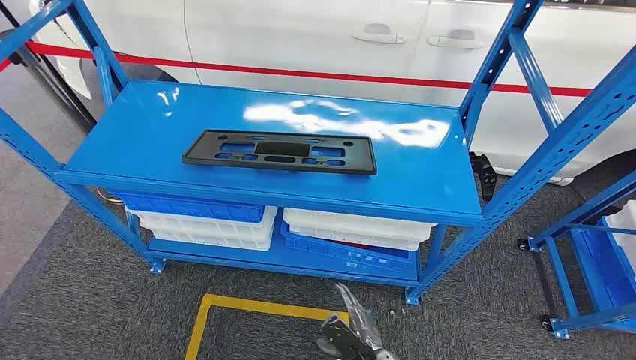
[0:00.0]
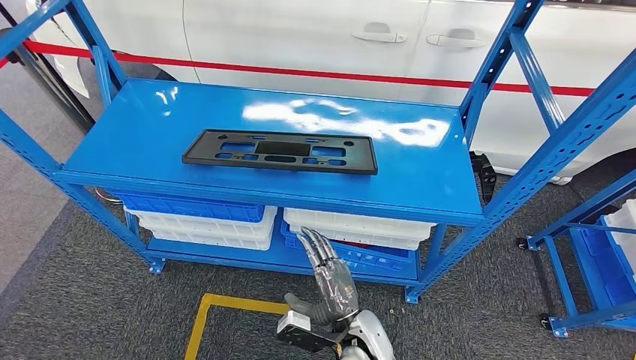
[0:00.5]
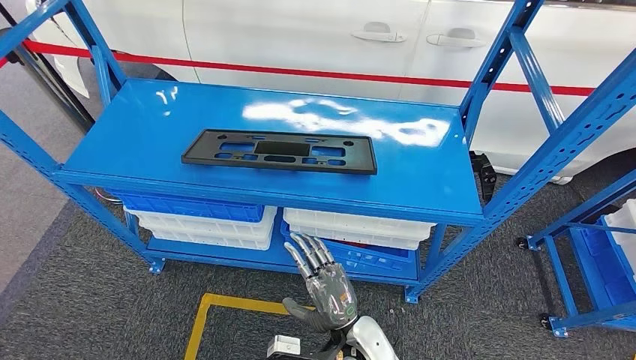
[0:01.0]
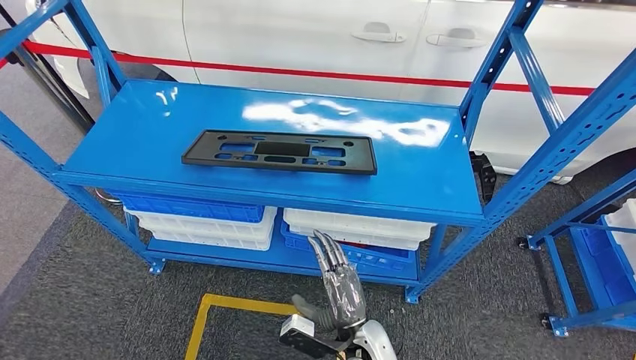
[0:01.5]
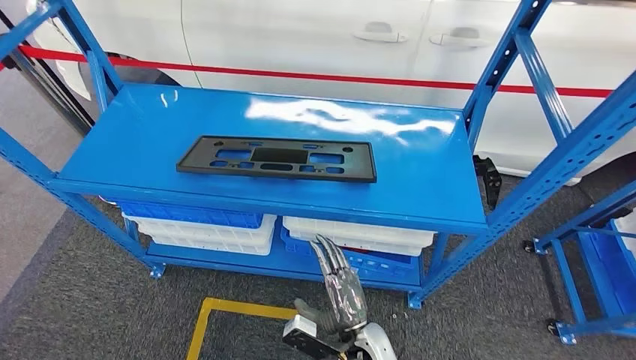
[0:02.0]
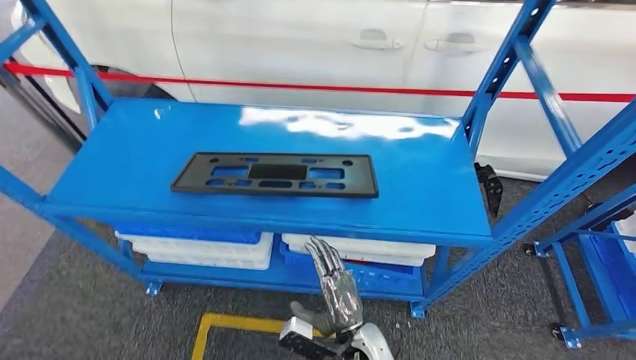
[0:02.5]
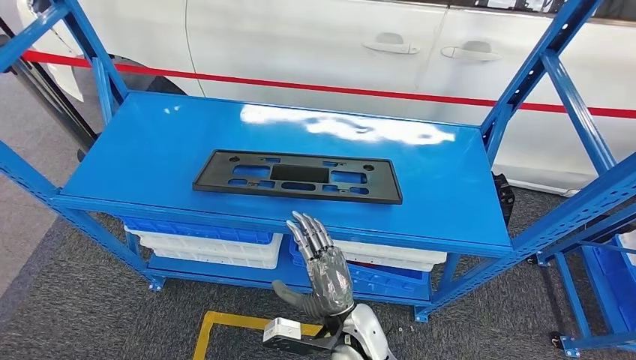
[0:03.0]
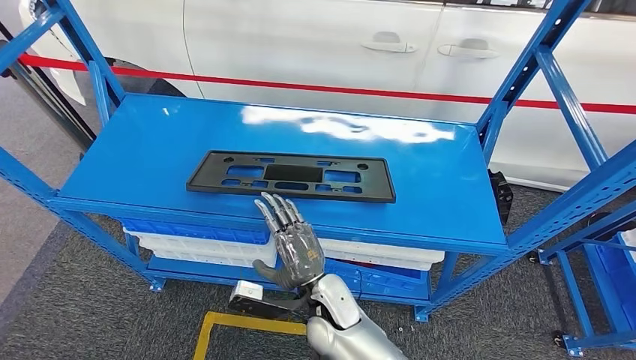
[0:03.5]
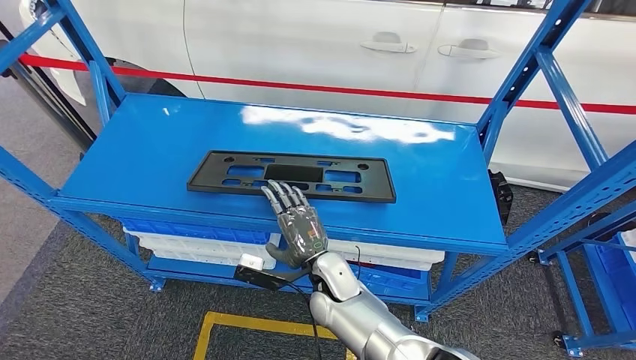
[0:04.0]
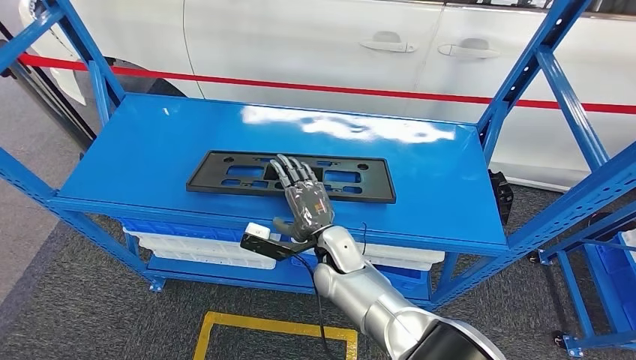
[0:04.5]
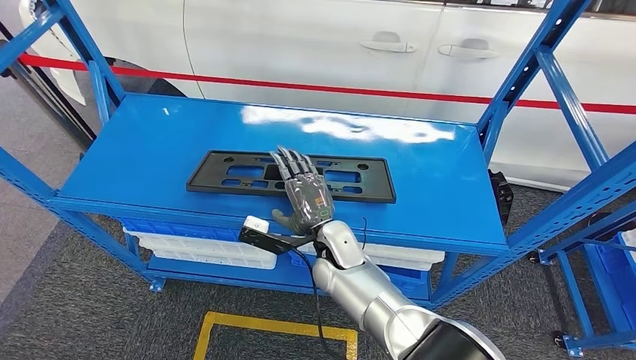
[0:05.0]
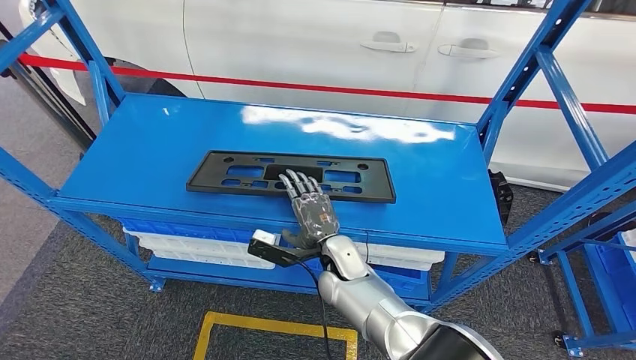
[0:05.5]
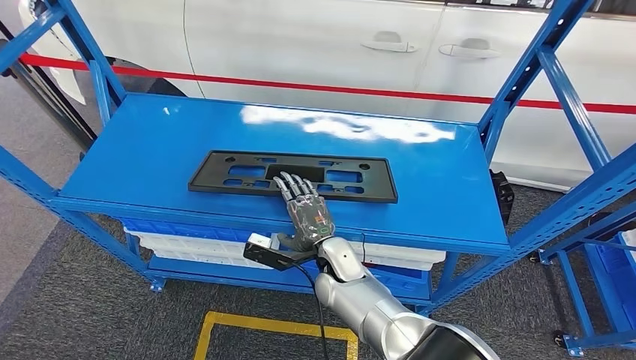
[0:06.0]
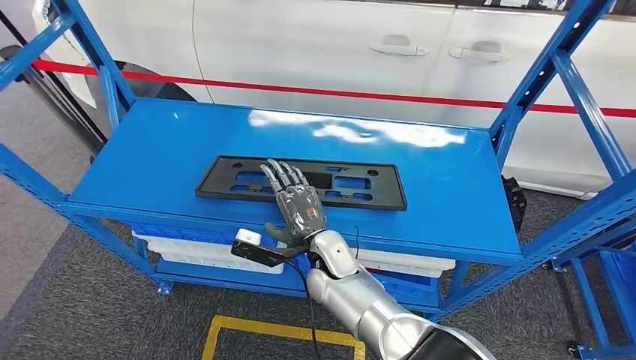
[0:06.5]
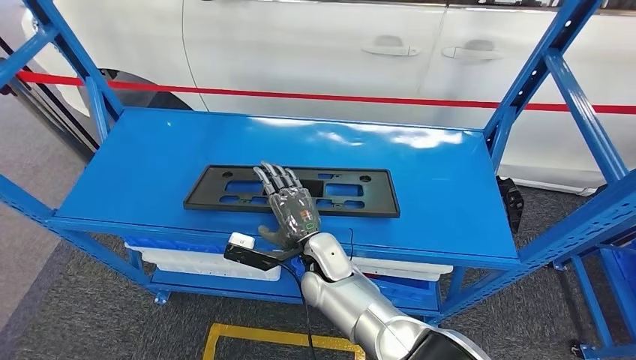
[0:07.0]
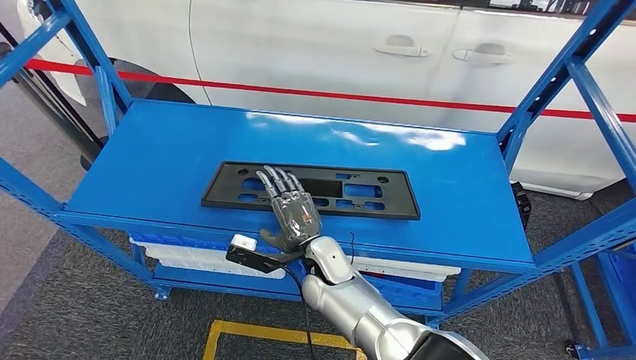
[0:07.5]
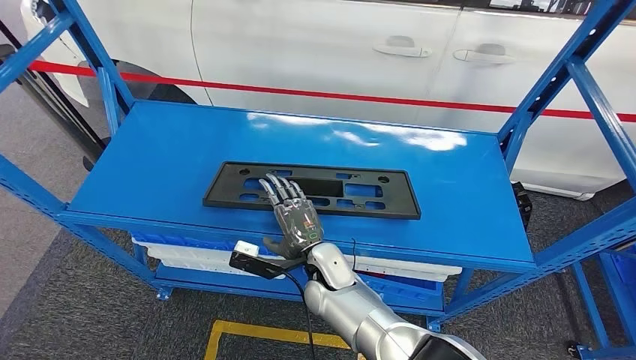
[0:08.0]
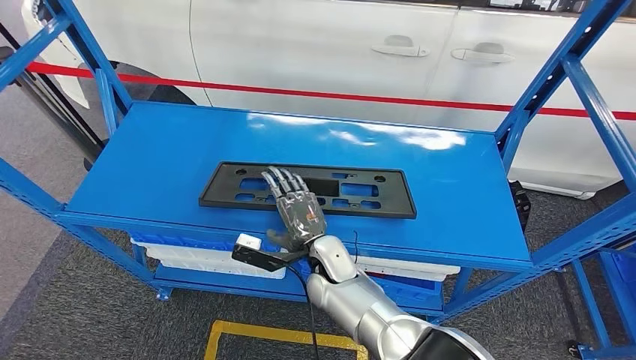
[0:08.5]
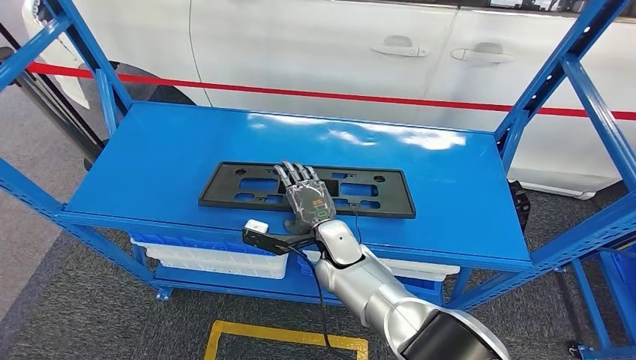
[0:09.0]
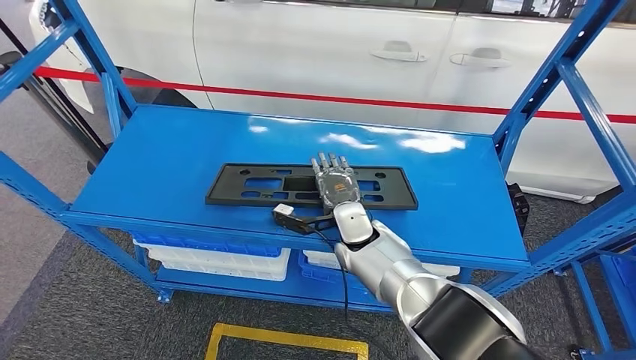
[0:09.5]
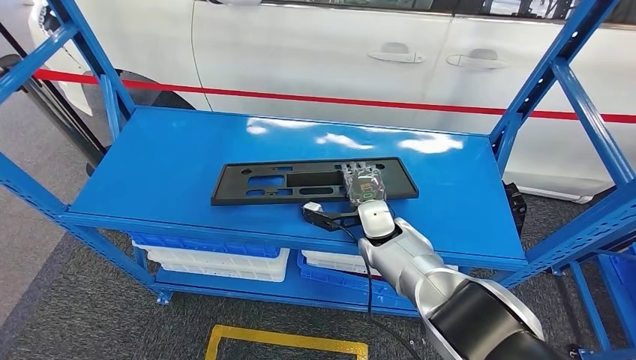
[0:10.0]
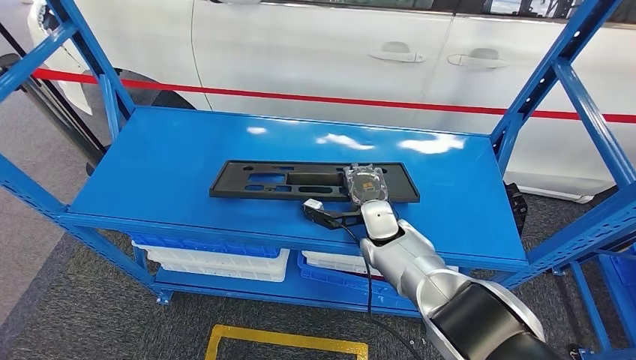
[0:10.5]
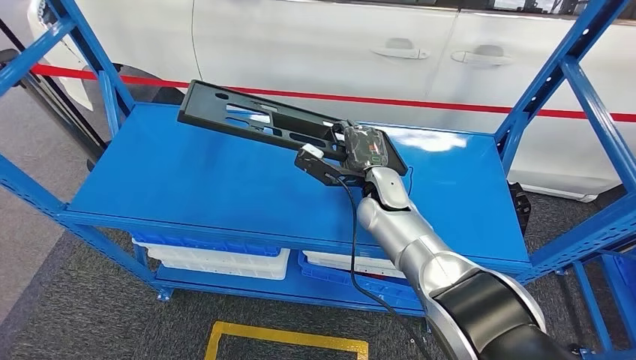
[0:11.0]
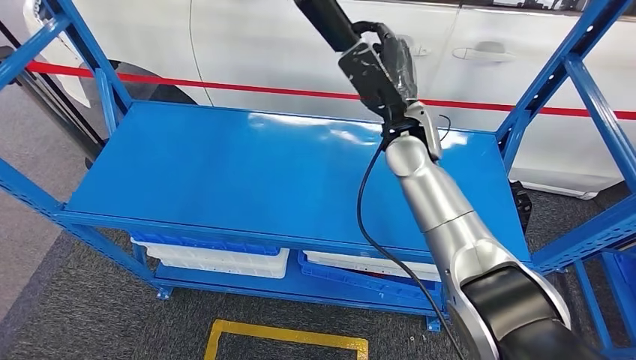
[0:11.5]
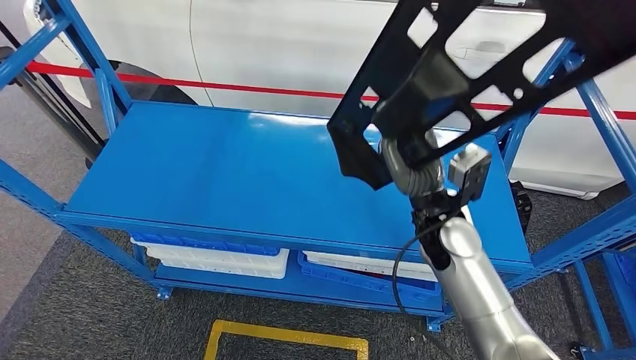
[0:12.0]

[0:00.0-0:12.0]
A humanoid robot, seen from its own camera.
0:04.0 to 0:06.0: The hands make only small movements.

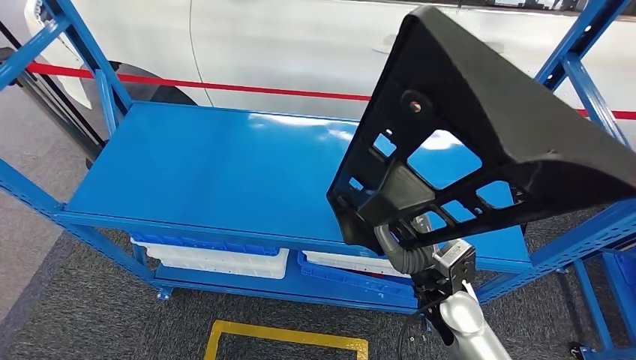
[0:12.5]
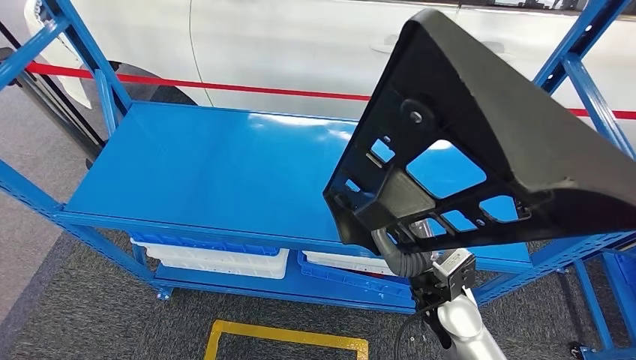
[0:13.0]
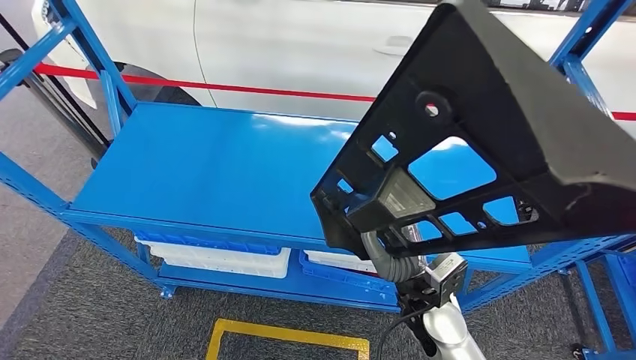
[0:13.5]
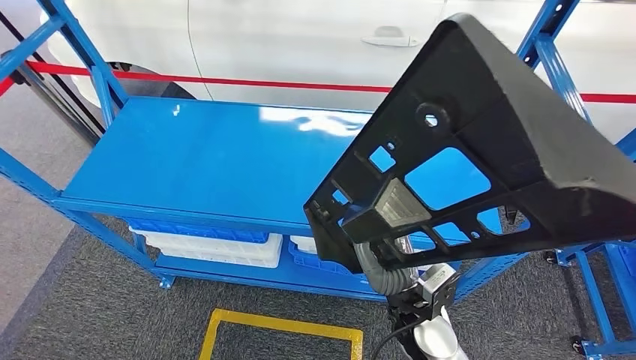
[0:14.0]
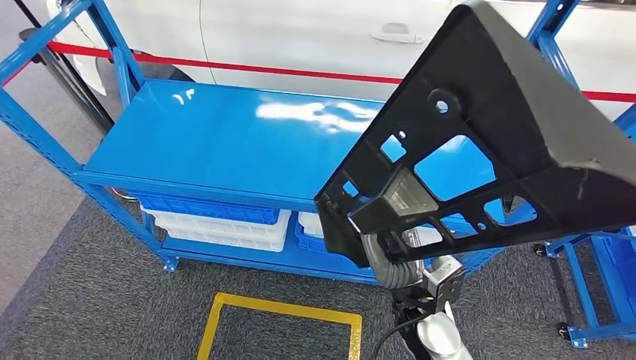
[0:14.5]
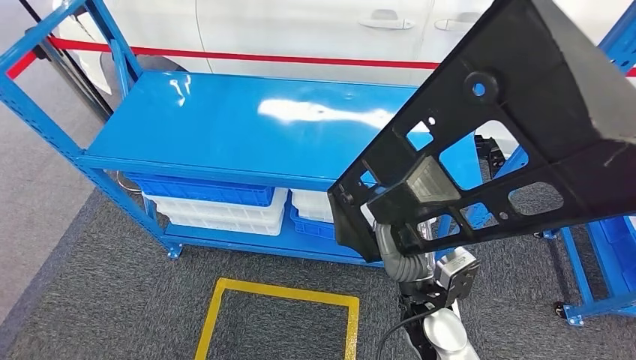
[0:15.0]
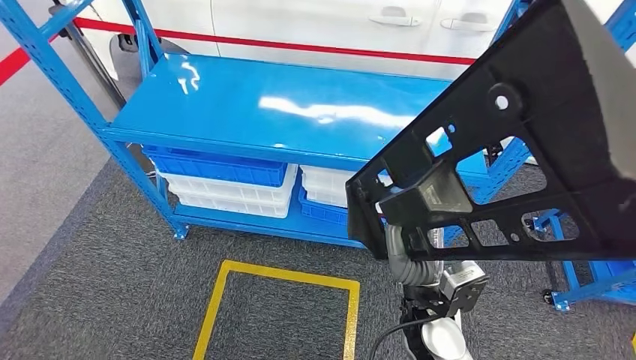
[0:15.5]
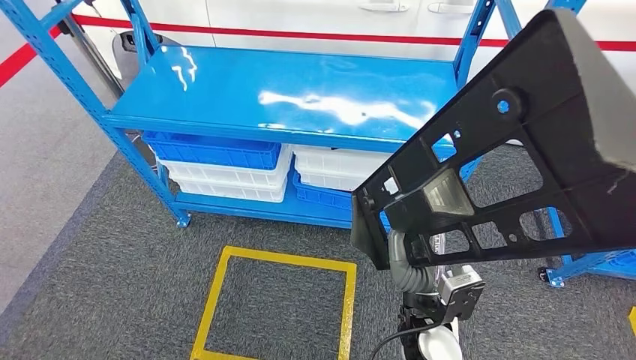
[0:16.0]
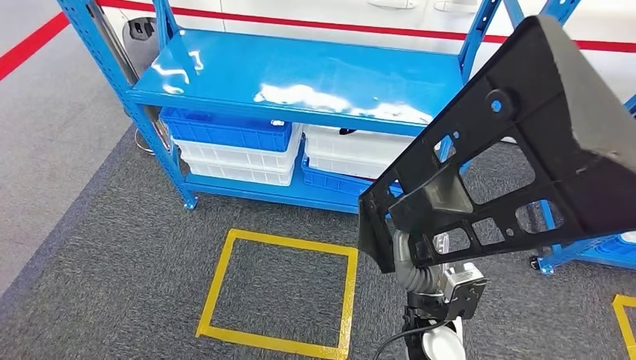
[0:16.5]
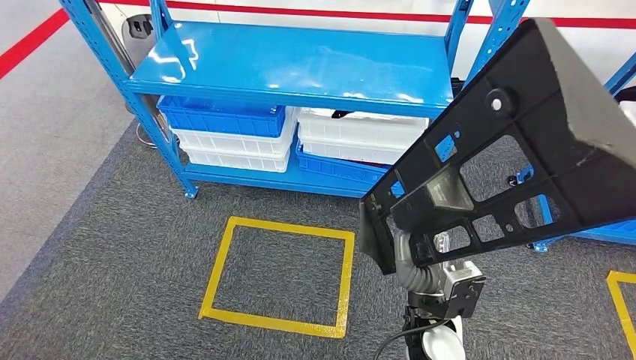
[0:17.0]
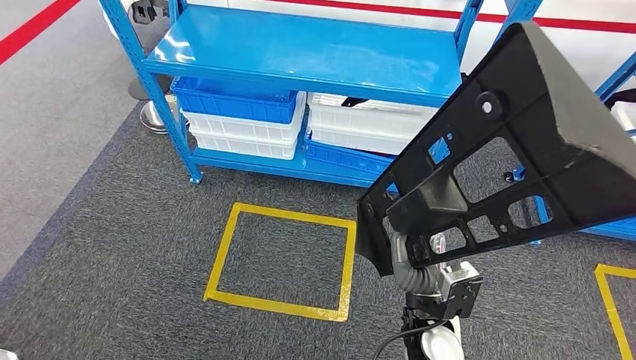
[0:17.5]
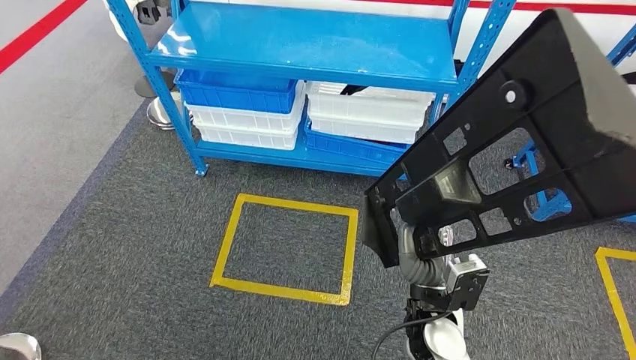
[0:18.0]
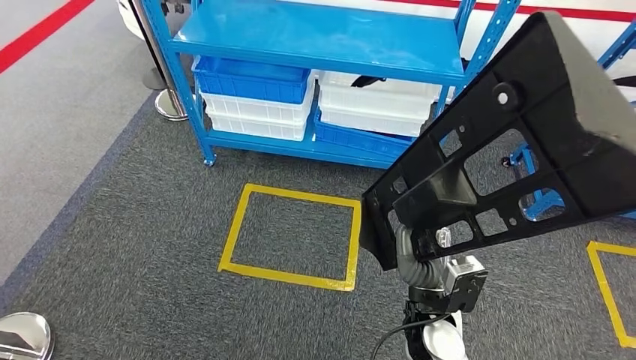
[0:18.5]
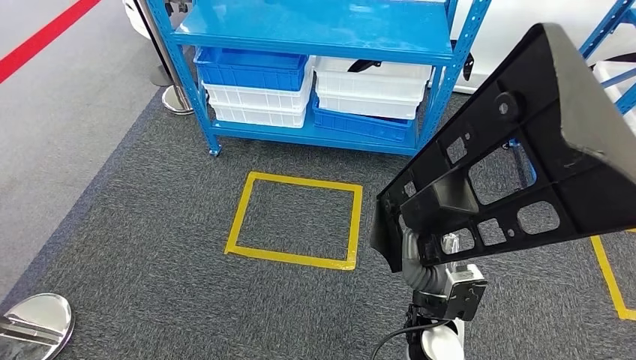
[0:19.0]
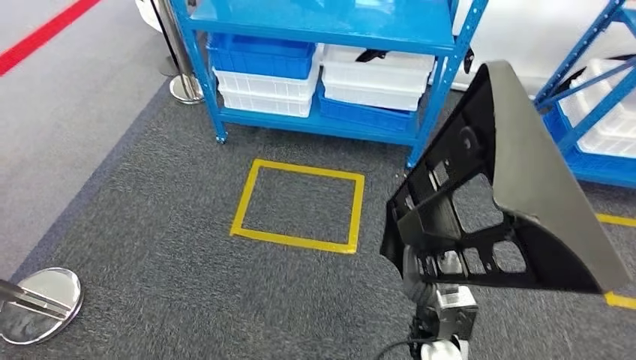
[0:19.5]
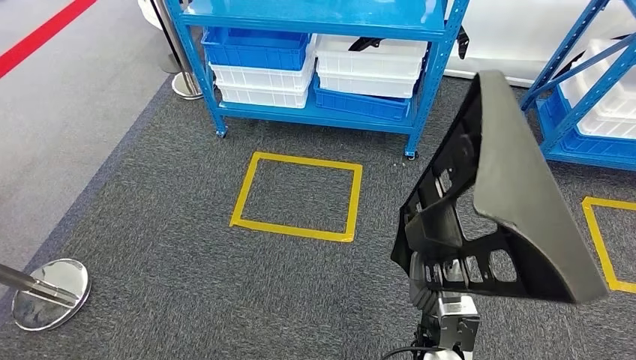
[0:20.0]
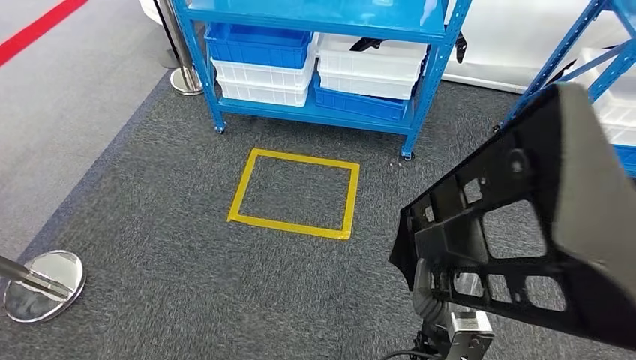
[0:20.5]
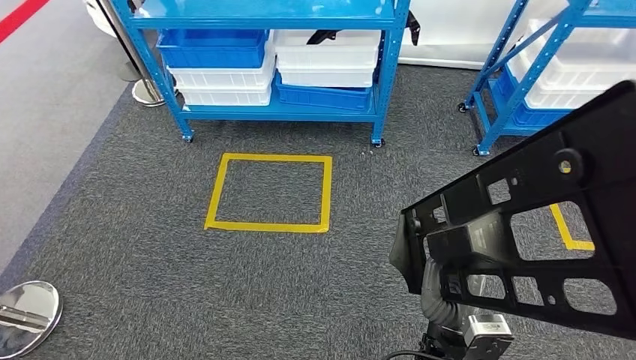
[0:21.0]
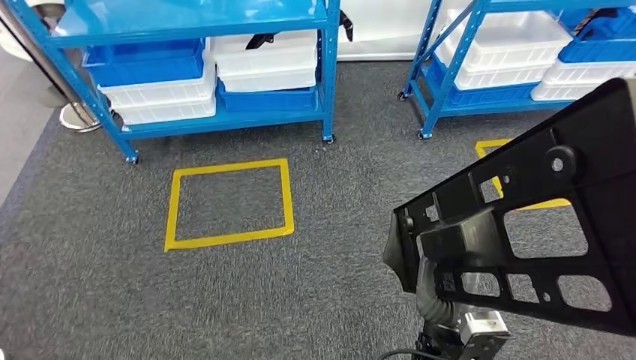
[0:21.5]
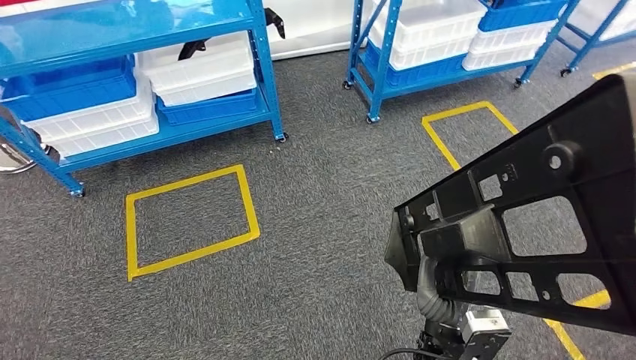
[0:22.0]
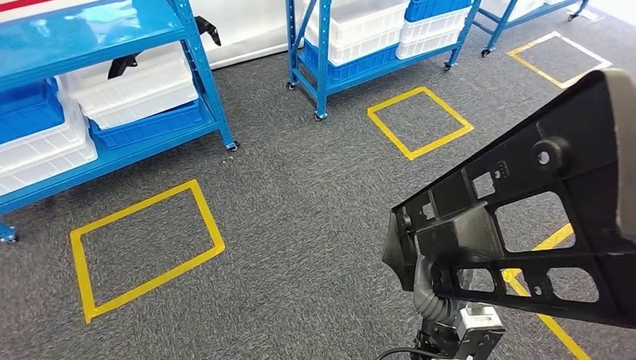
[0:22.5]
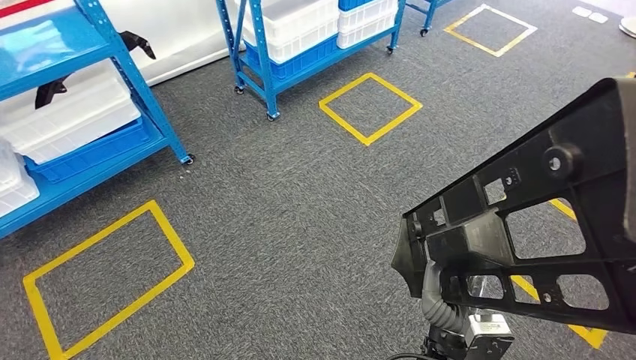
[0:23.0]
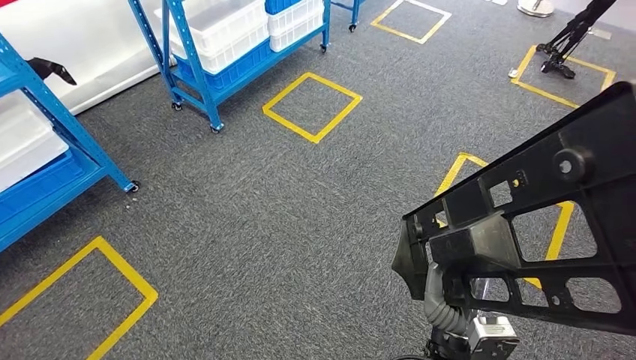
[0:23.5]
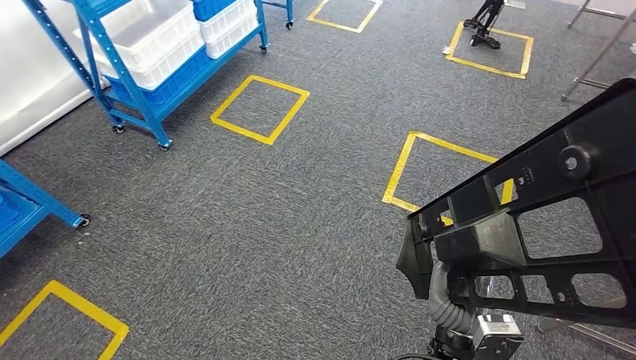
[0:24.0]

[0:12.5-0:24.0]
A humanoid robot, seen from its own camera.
Step, 0:12.5 to 0:15.5: Pick up the large material from the shelf.
